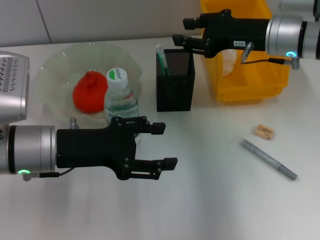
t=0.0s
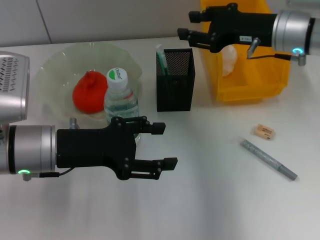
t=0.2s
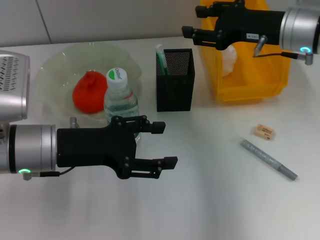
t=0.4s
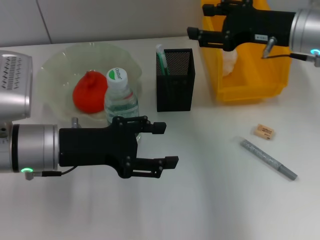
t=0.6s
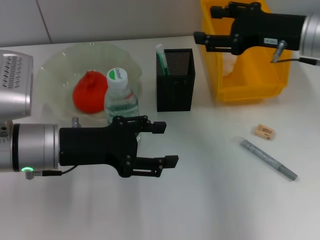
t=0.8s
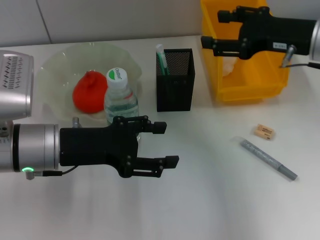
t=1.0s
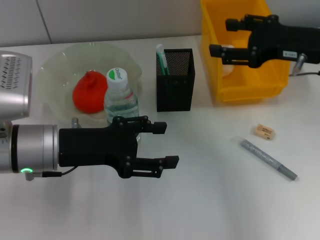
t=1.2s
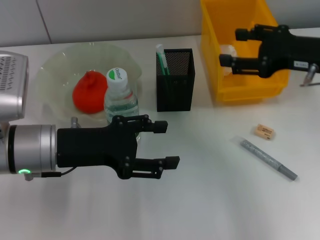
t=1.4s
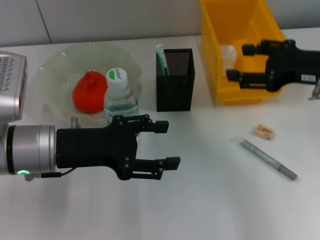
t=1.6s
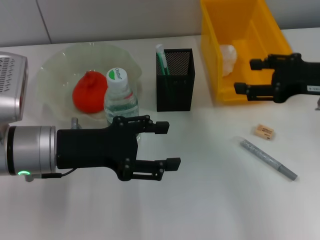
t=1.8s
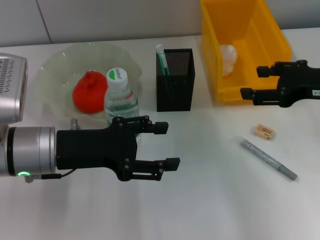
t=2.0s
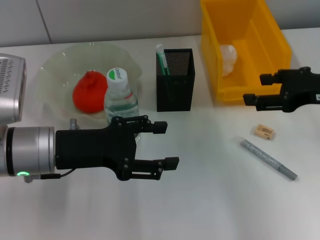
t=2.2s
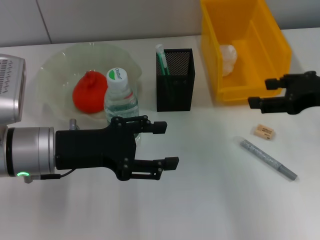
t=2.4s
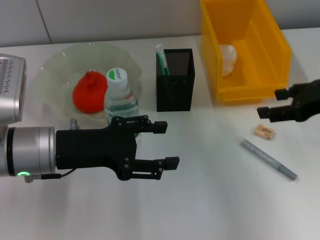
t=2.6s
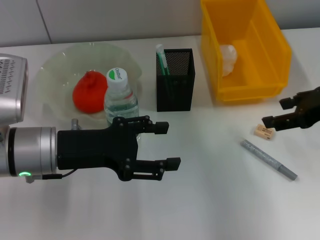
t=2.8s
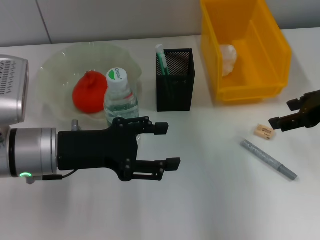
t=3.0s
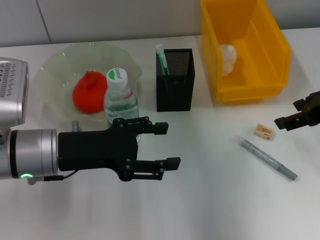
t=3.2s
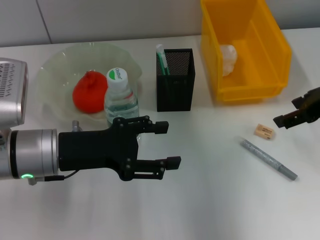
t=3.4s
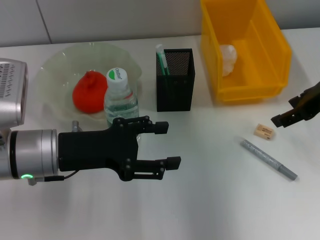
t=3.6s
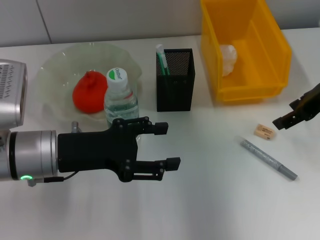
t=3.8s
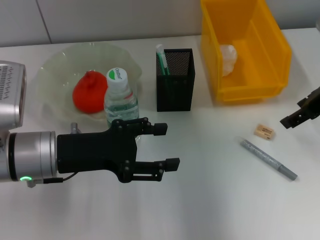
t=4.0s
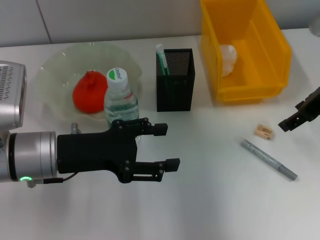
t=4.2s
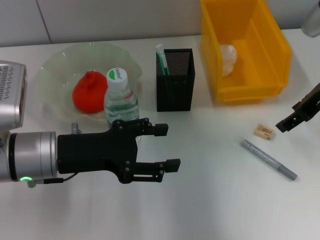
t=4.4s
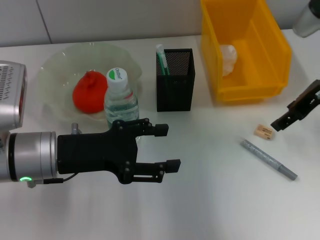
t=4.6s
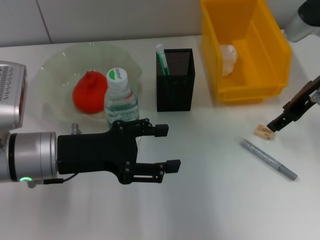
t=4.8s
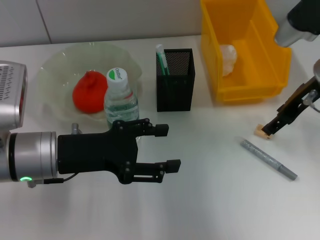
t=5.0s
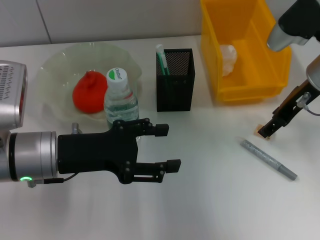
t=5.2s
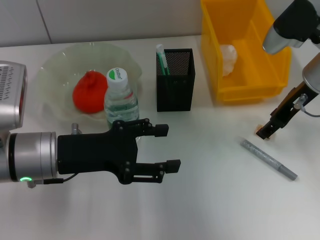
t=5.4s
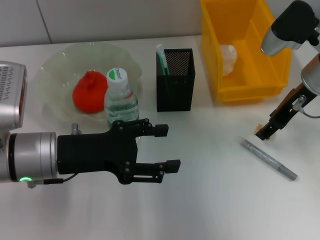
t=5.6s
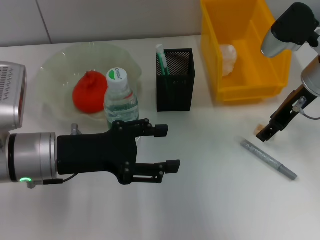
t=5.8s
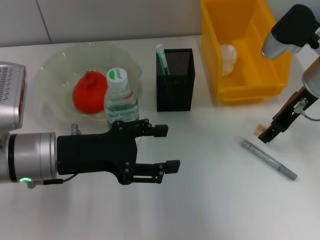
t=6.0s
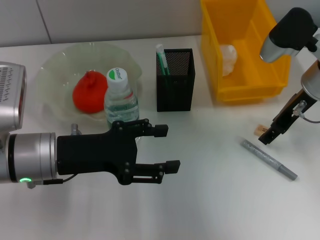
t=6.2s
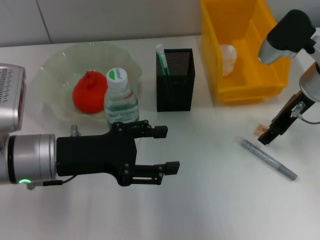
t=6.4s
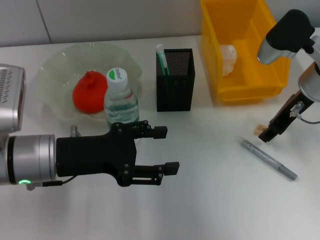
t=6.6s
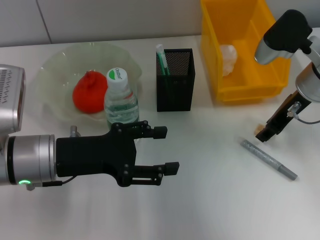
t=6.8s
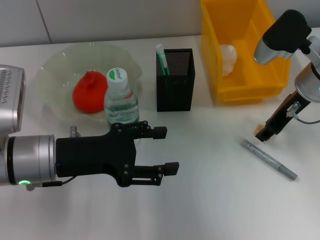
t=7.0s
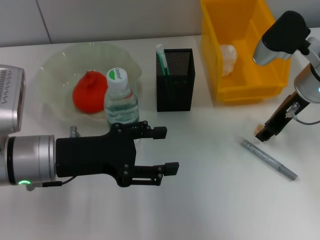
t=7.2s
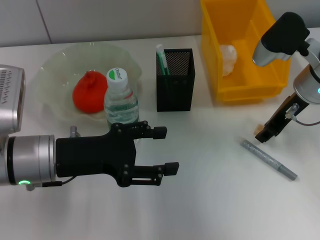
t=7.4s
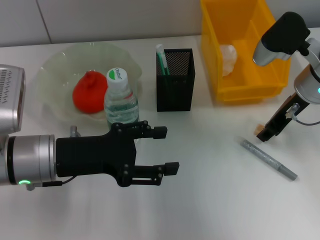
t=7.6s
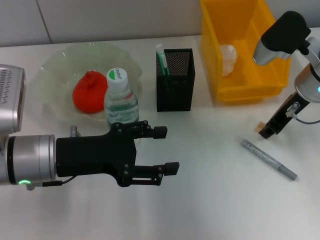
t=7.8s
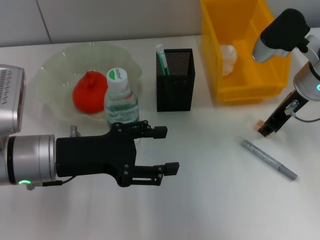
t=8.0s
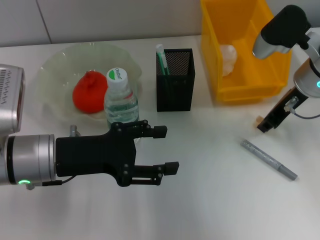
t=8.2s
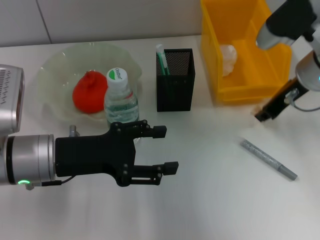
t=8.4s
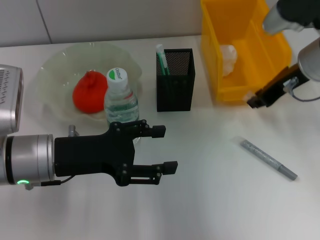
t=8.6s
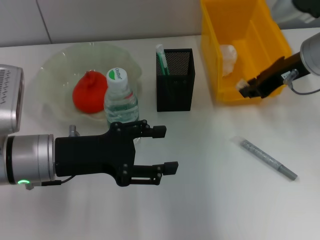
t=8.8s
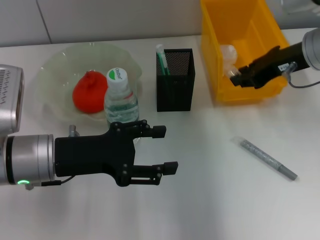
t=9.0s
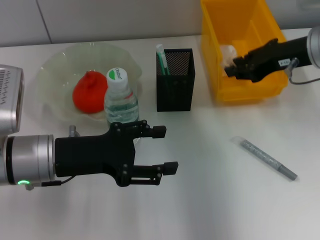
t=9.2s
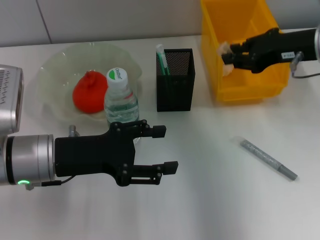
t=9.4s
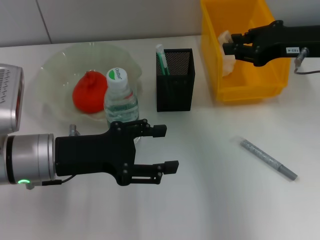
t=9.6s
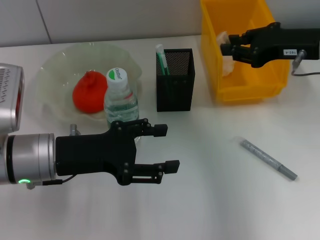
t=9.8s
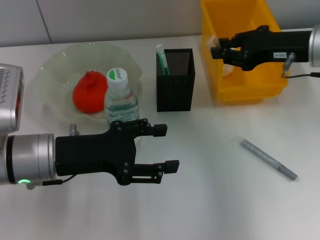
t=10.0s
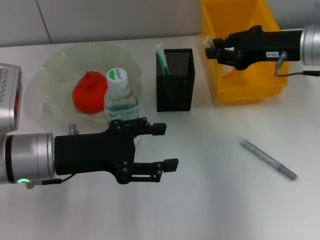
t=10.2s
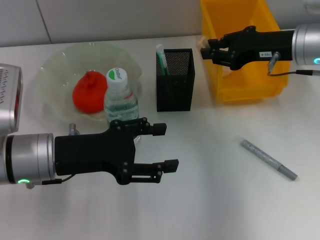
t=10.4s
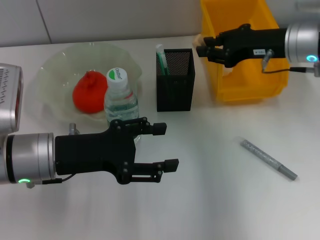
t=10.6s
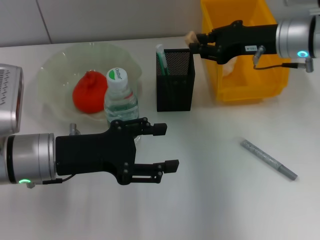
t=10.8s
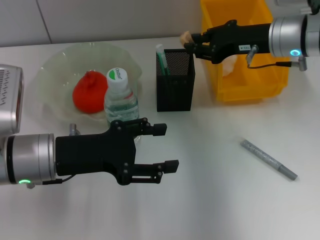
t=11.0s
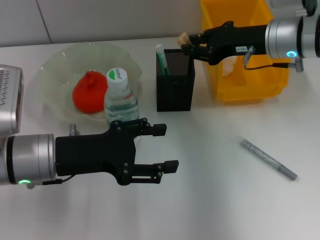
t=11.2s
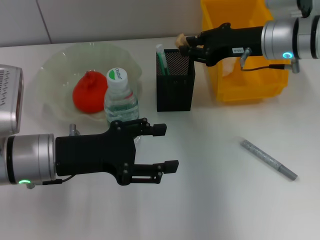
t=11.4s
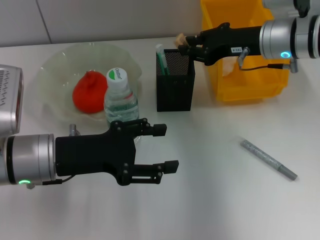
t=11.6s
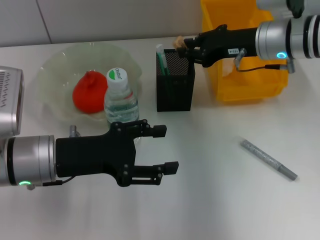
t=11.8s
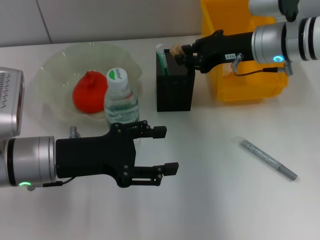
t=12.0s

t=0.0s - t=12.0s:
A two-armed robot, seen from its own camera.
Step, t=0.0s - t=7.4s: Grab the eraser with the right hand.
t=0.0s - t=1.6s: The right gripper goes some 10 cm backward and to the right, and opens.
t=3.0s - t=4.4s: The right gripper moves forward, roughly 5 cm.
t=4.4s - t=6.0s: The right gripper ends up about 5 cm from where it was.
t=6.0s - t=7.6s: The right gripper closes its fingers.
t=7.6s - t=9.0s: The right gripper travels upward by some 5 cm.
t=10.4s - t=12.0s: The right gripper shifts by about 5 cm.

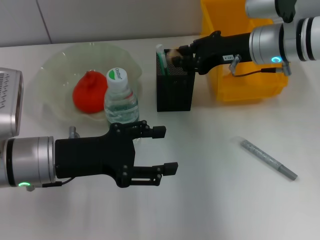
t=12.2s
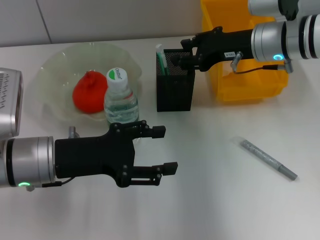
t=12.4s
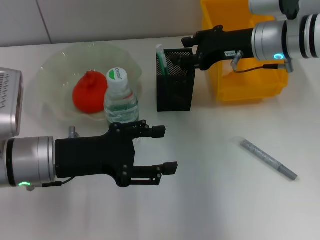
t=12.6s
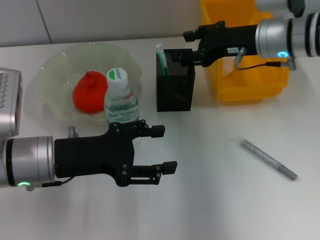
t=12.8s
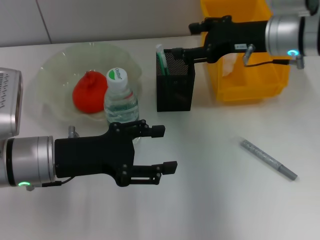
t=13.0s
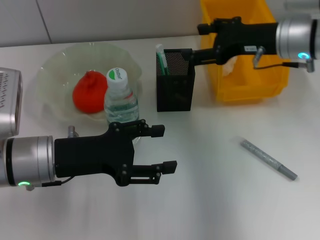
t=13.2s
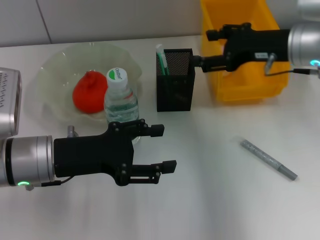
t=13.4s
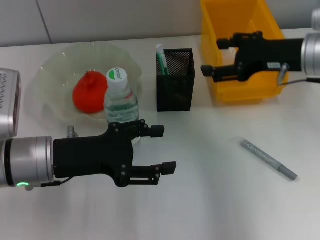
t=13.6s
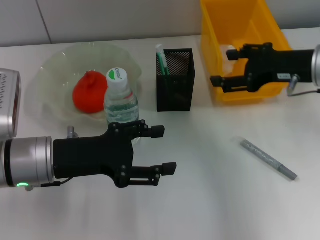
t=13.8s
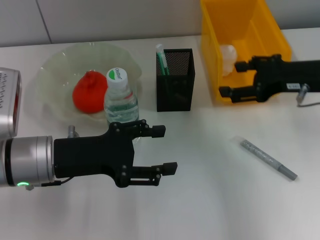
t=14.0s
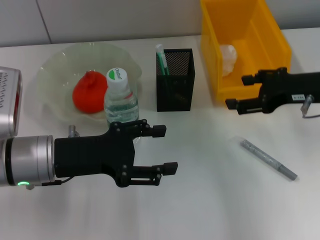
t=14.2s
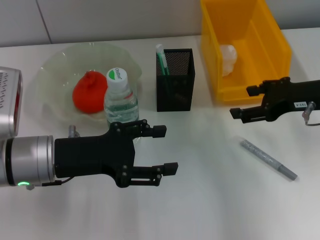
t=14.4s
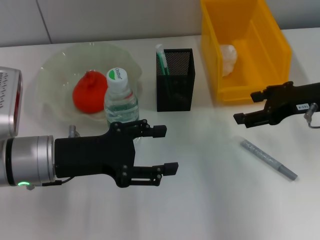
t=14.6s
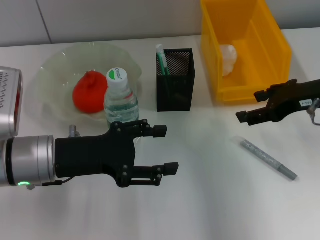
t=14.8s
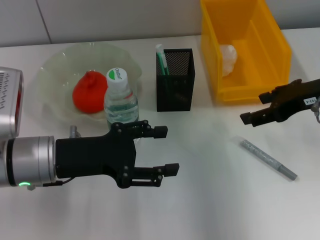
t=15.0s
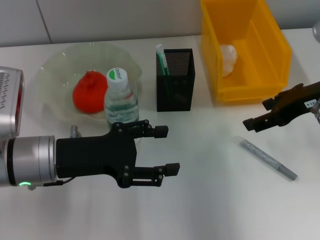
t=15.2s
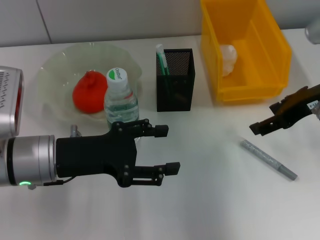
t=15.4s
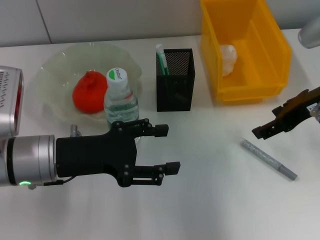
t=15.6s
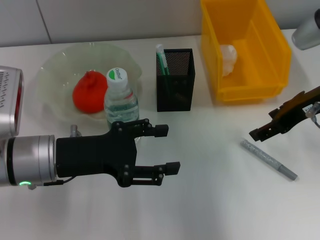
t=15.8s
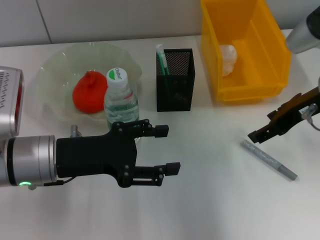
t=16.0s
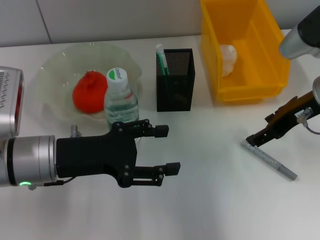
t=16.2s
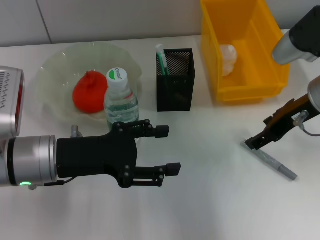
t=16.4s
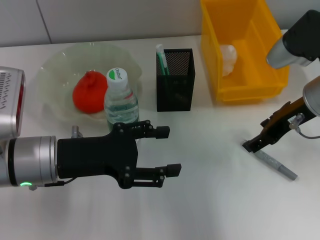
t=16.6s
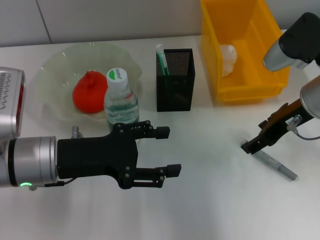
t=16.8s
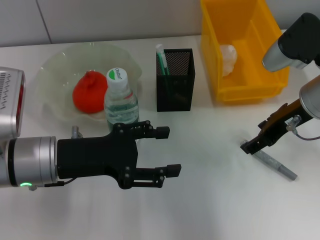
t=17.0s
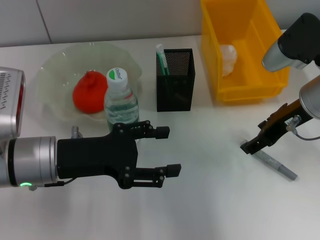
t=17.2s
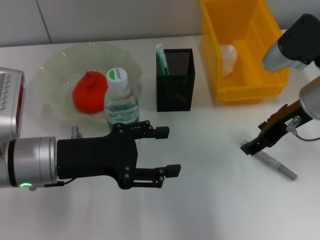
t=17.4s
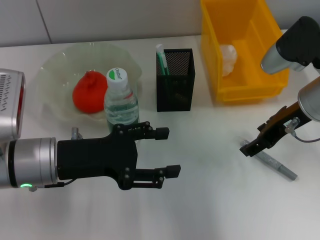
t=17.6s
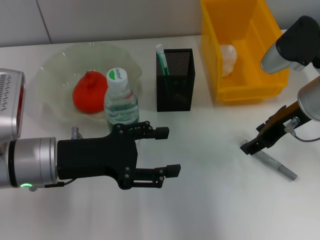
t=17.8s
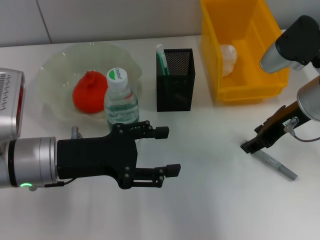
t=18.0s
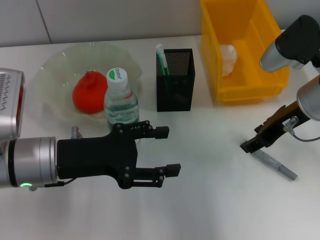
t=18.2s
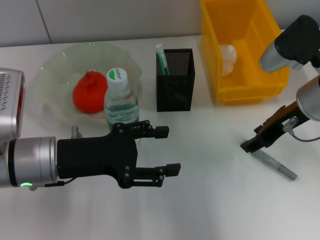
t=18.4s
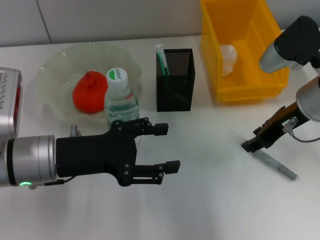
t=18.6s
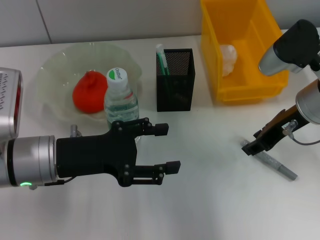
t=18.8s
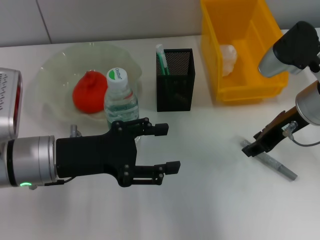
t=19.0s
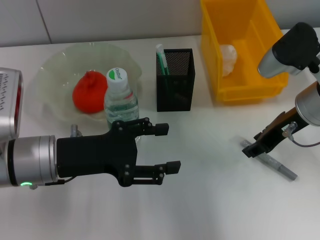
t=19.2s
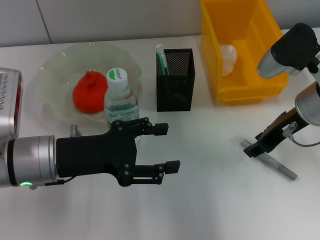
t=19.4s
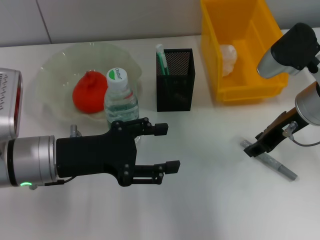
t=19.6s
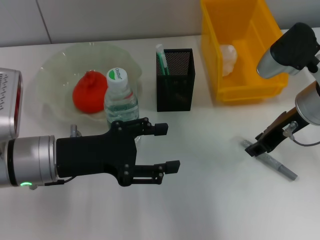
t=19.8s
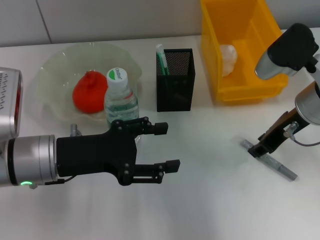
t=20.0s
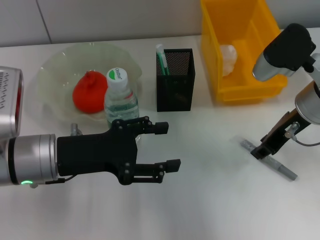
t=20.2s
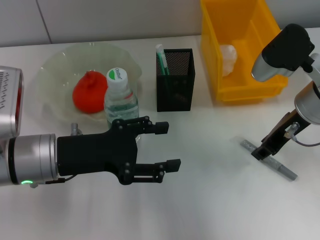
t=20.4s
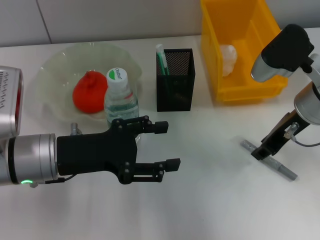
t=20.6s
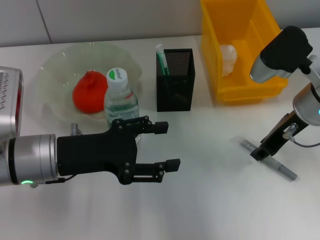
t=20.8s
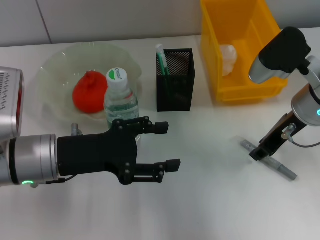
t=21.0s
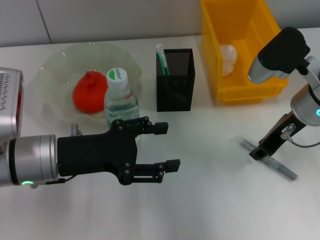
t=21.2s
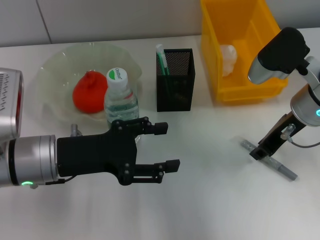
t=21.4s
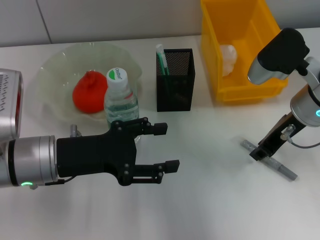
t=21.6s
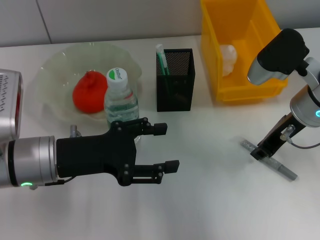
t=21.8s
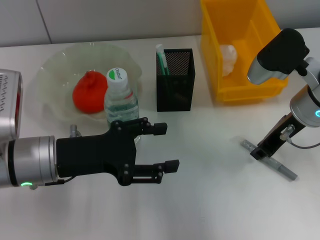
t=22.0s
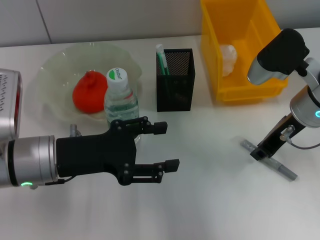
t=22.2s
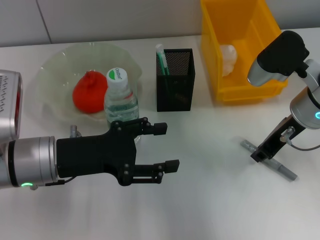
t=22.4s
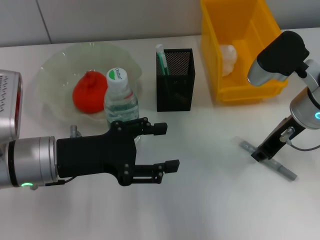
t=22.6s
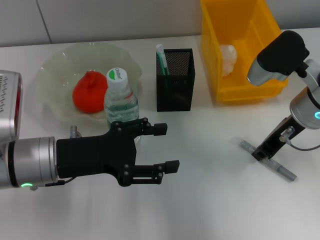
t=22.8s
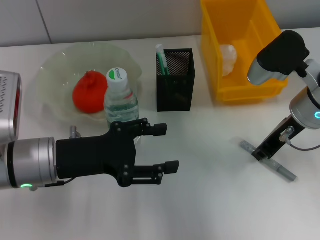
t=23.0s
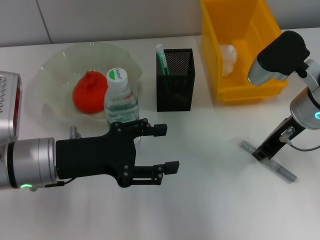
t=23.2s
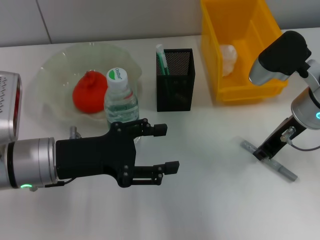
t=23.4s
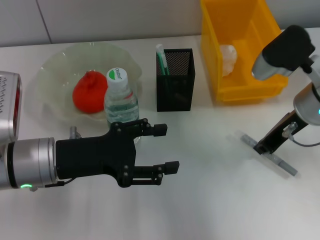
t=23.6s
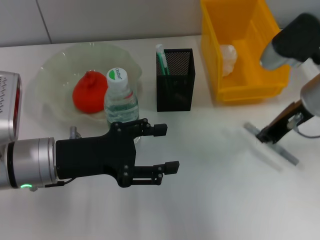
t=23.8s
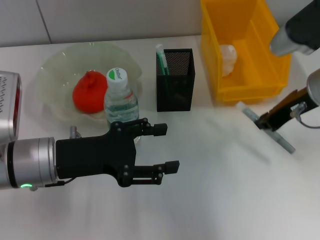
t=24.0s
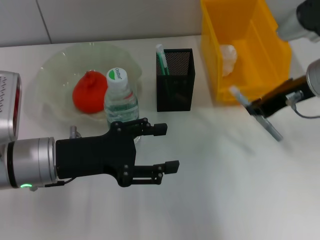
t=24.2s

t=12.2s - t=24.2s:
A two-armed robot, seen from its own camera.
Step, t=12.8s - t=23.0s: Grab the gray glue with the right hand.
t=12.2s - t=13.8s: The right gripper travels backward and to the right by some 10 cm, and opens its fingers.
t=15.2s - t=16.6s: The grippers make only small movements.
t=16.6s - t=18.2s: Both grippers stay put.
t=18.2s - t=19.8s: Neither gripper changes place.
t=19.8s - t=21.2s: The grippers make only small movements.
t=21.2s - t=22.6s: Both grippers stay put.
t=22.6s - t=24.2s: The grippers stay close to where they were, moving slightly.
